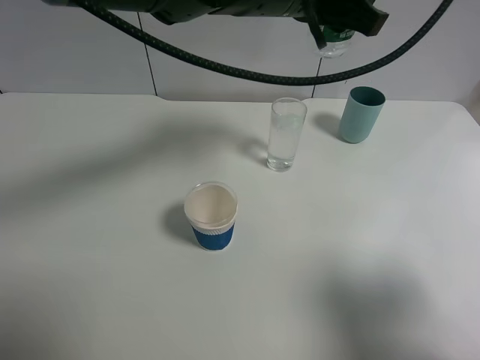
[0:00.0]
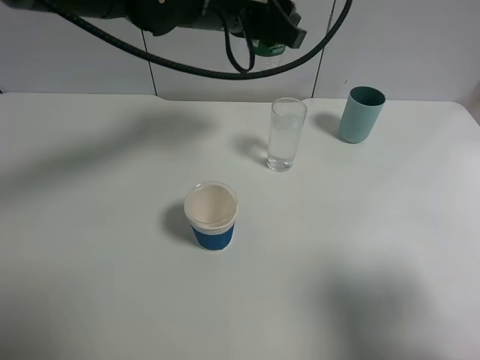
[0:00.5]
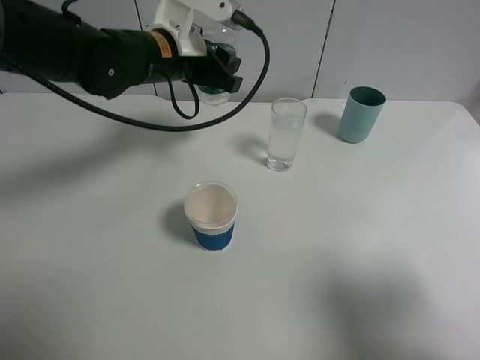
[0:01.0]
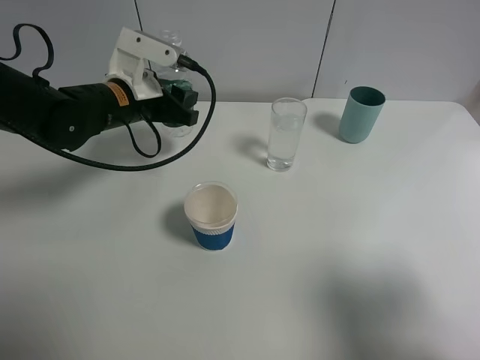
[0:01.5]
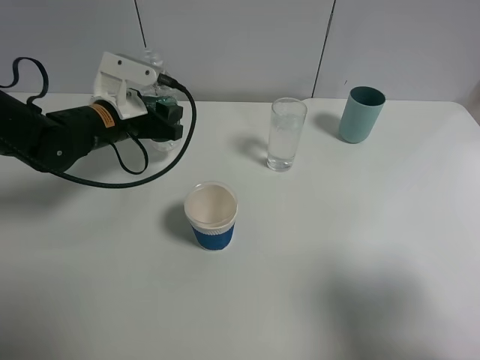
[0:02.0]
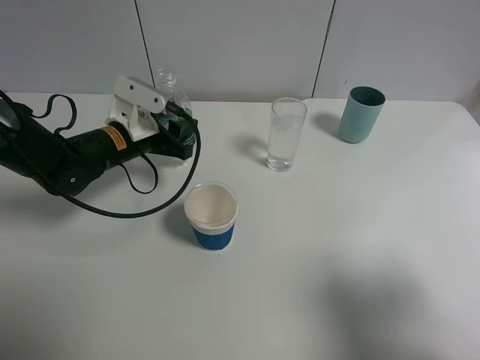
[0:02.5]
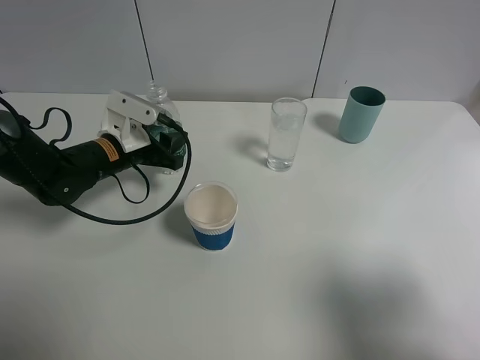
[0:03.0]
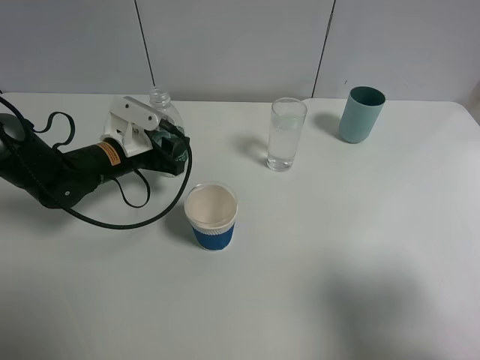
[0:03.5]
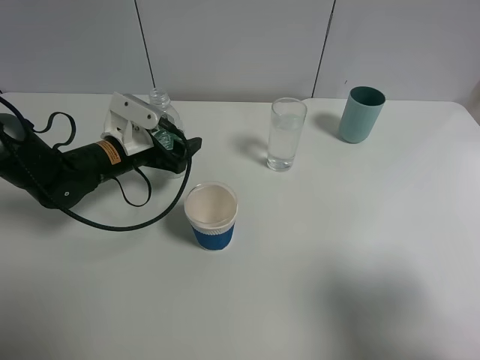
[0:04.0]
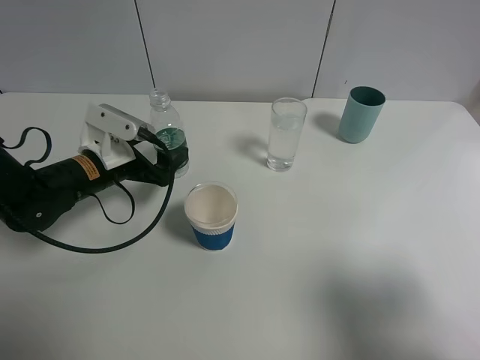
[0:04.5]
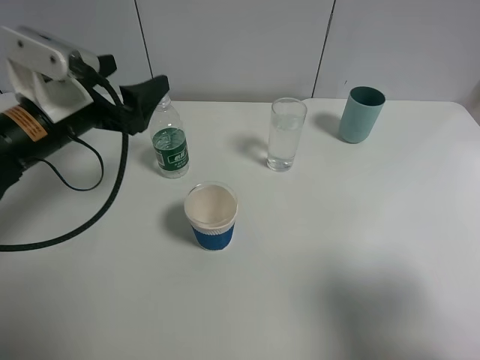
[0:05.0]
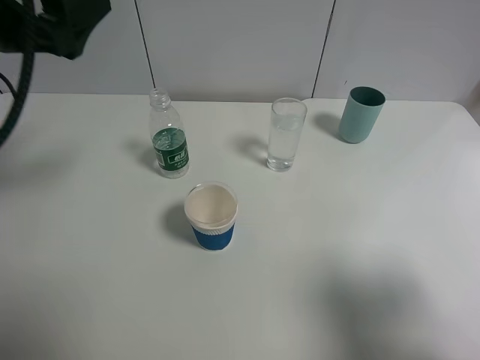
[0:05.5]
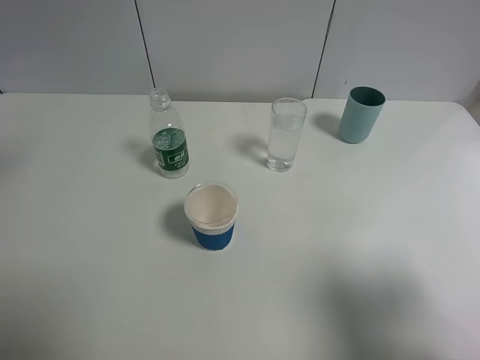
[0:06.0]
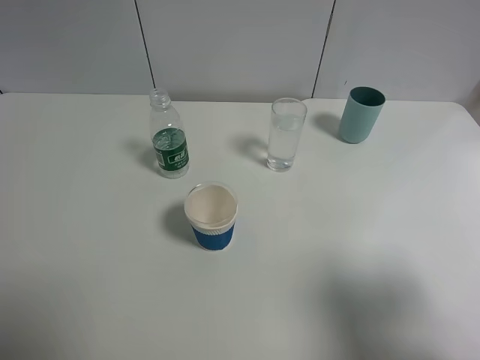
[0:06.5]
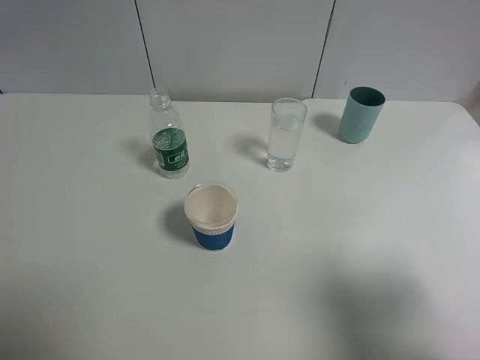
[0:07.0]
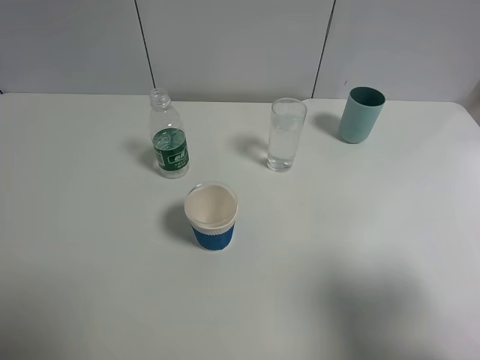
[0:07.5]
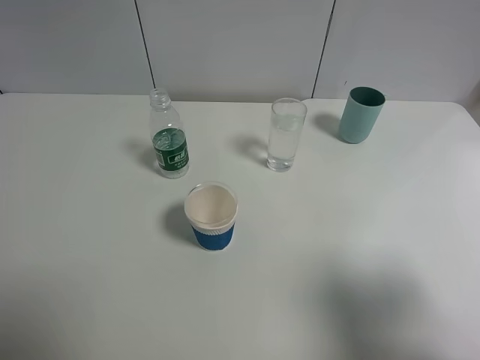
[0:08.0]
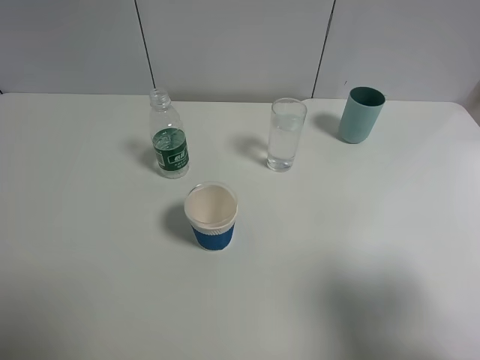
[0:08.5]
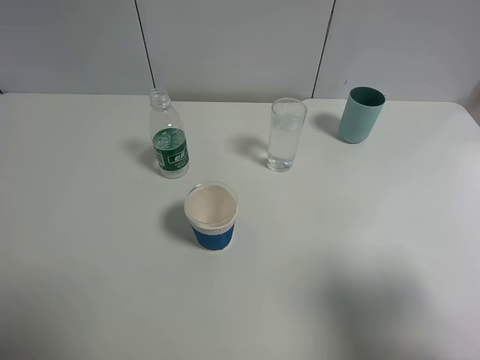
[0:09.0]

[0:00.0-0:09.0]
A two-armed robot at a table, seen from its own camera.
Task of the whole recording: use a gripper to hold the bottle of the drink and pour it into a random cup.
Step, 0:00.0 to 0:04.5: Place the mineral water bottle on the table with the left gripper.
0:00.0 to 0:02.0: The left gripper travels to the left and downward by approximately 25 cm.
0:02.0 to 0:04.5: The left gripper shifts about 5 cm backward, and opens up.
0:04.5 to 0:07.0: The left gripper goes roughly 40 cm upward and backward.

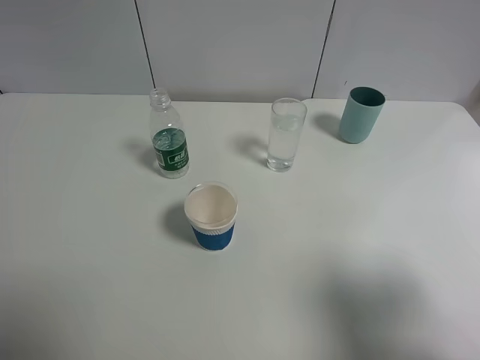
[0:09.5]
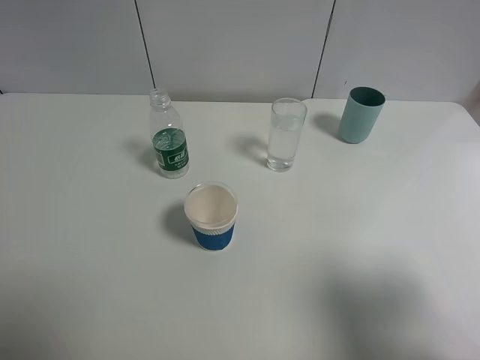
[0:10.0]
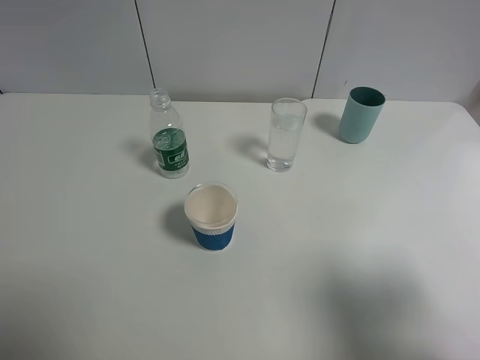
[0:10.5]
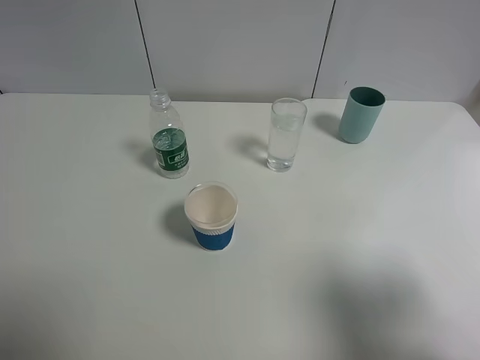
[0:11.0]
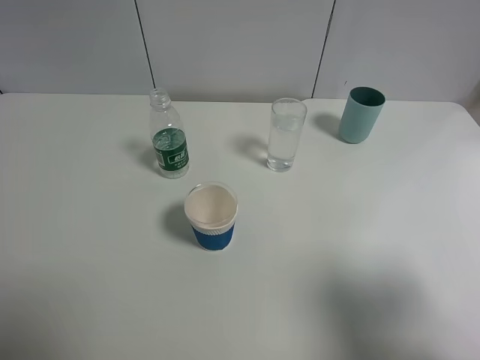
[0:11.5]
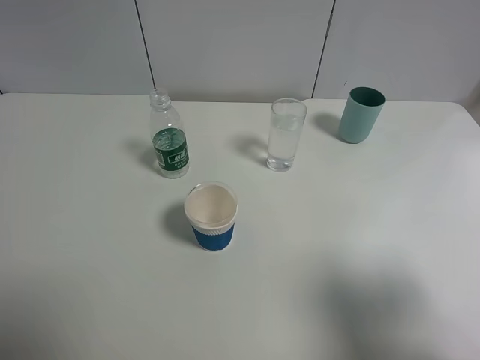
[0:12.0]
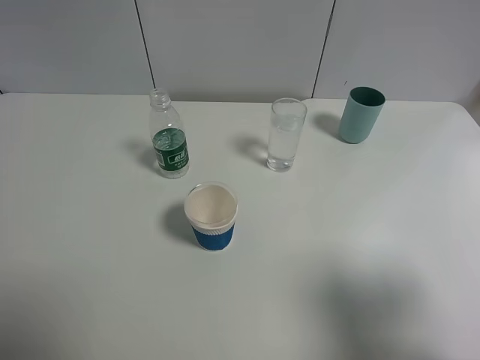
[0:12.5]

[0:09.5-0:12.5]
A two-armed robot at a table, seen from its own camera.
Task of the whole recording: use a gripper to hold the bottle of the drink and pour it into a random cup.
0:09.5 to 0:12.5: Both grippers stay about where they are.
